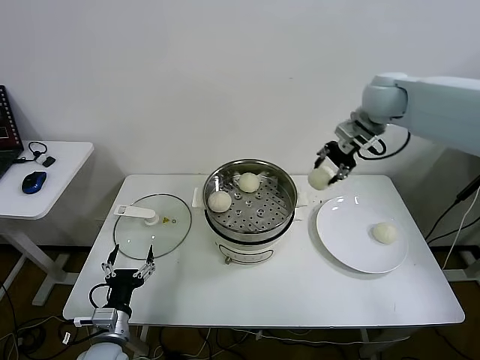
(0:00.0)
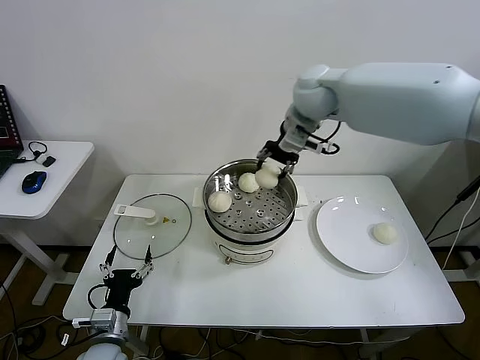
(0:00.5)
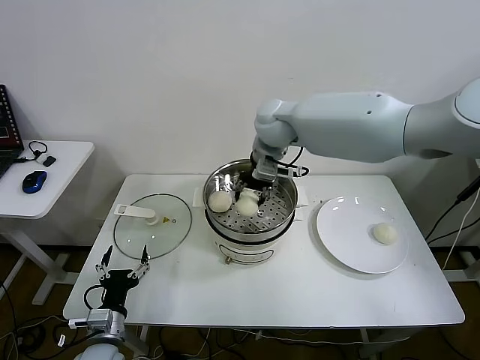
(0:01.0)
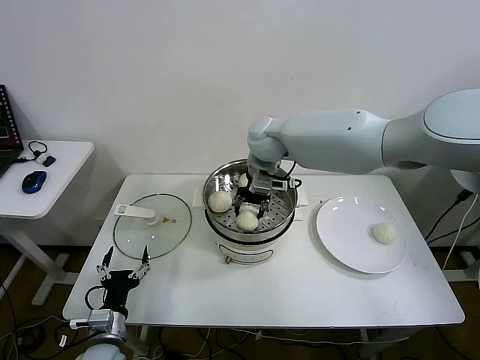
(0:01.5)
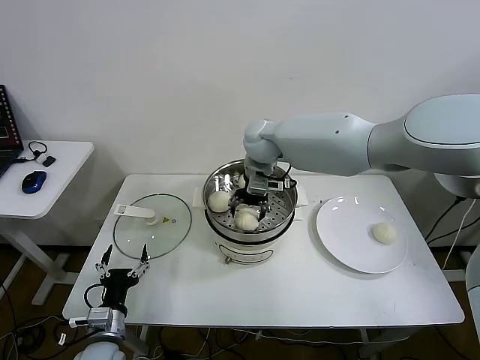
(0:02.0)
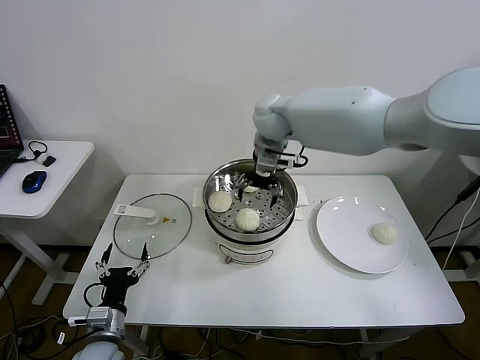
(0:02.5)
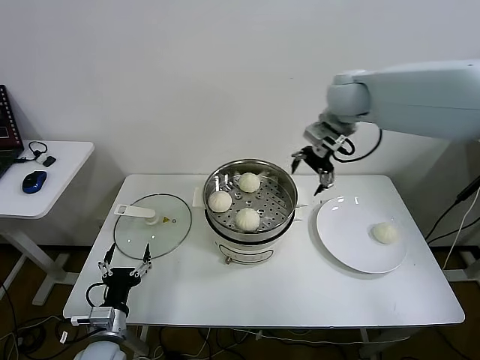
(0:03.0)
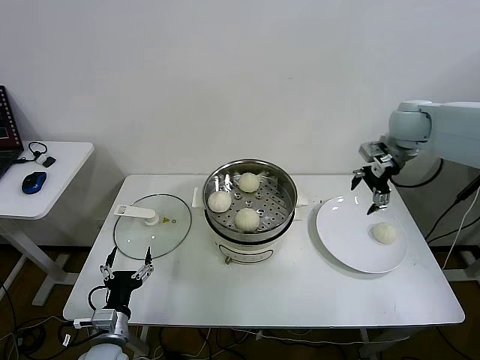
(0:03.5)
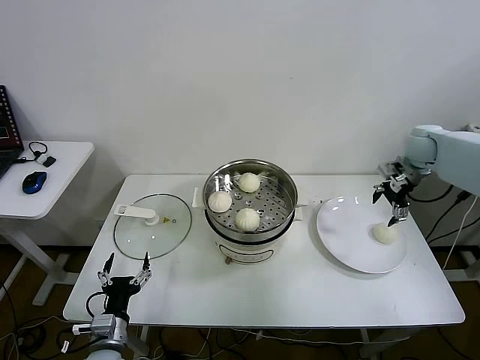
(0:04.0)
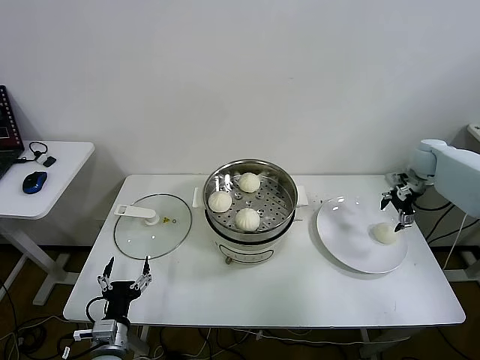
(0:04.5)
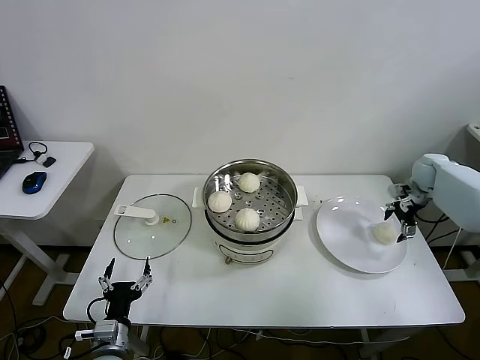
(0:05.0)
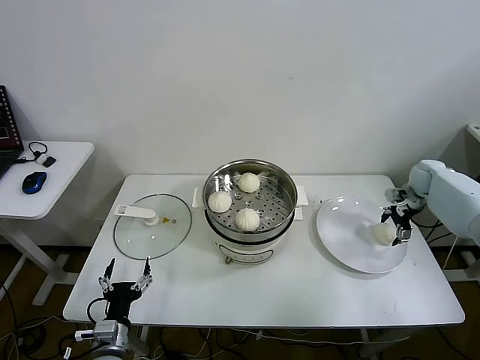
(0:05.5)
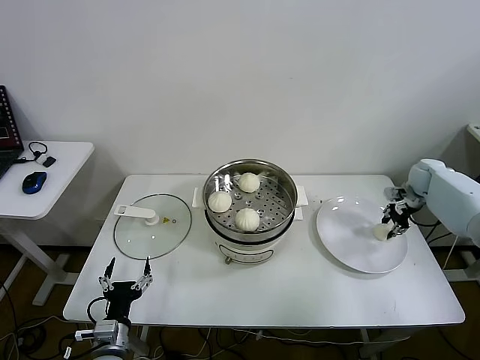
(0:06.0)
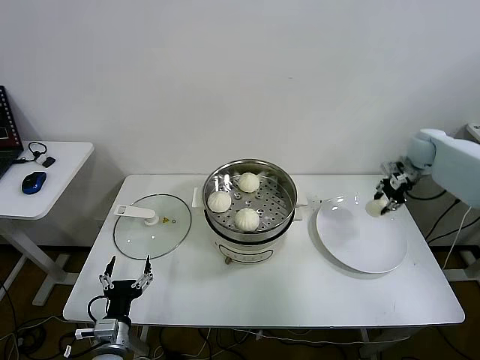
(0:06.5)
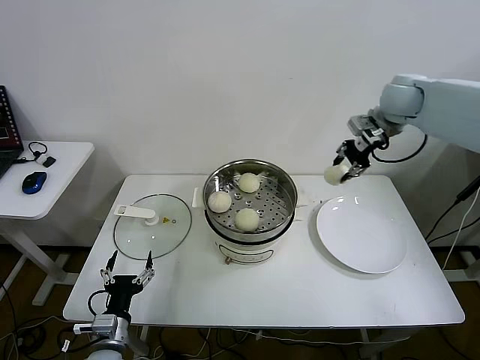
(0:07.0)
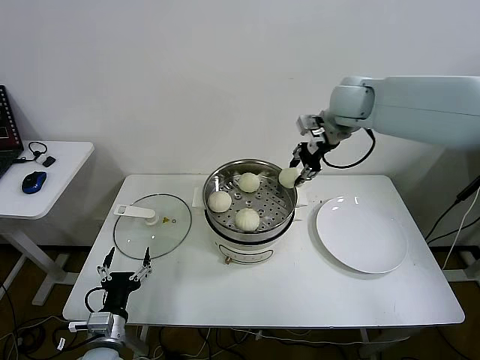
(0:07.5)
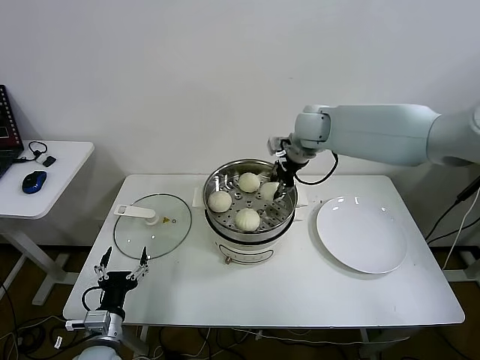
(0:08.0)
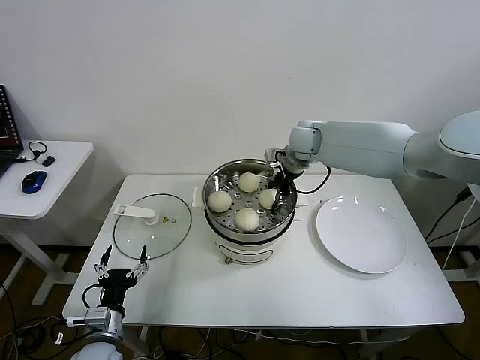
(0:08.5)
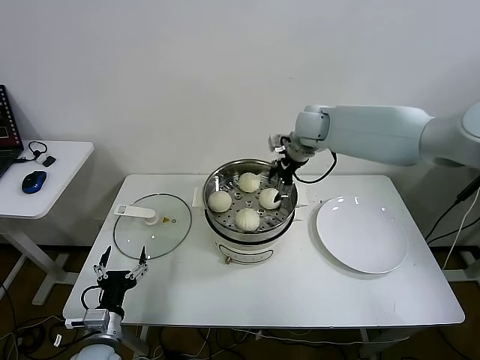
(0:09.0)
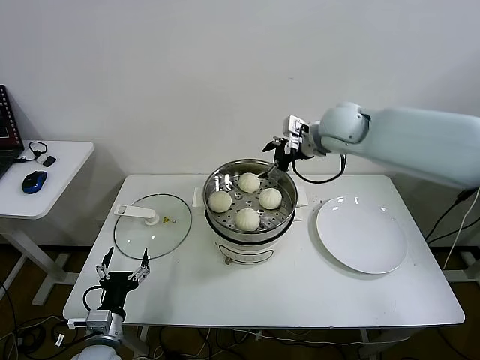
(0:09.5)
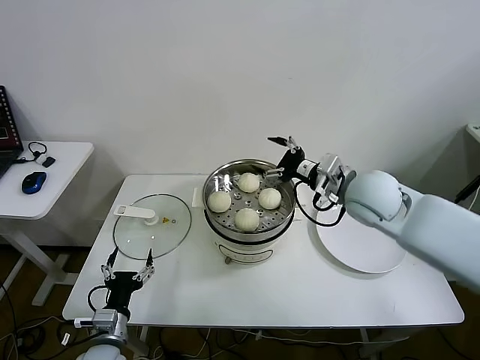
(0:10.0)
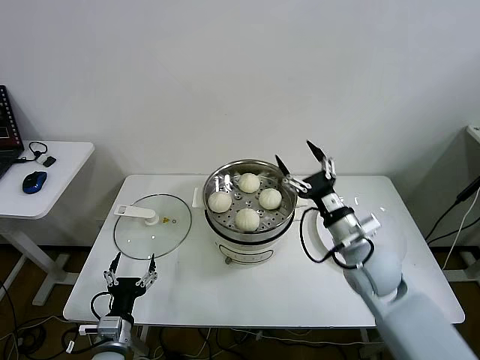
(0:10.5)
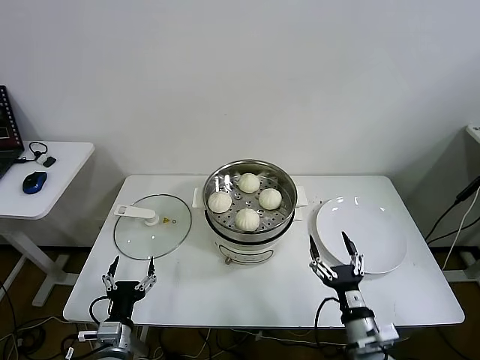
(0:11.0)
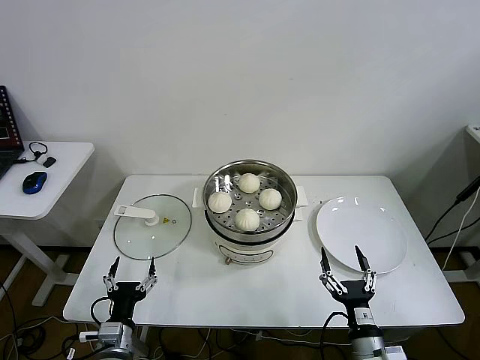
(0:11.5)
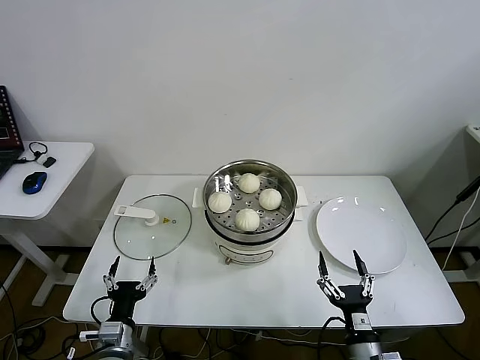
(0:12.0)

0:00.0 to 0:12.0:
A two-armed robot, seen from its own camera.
Step, 0:00.0 to 0:02.0: Place the baozi on the steamer with right gripper.
Step, 0:02.5 to 0:06.0: Grasp the baozi in the plate with right gripper.
Step, 0:06.5 to 0:09.0: Place the baozi on the steamer with right gripper.
0:00.0 to 0:02.0: The right gripper travels to the left and downward by roughly 25 cm, and opens.
0:02.0 to 0:04.0: The right gripper travels to the right by roughly 40 cm.
0:04.0 to 0:06.0: The right gripper goes roughly 15 cm downward and to the right, and closes.
0:06.0 to 0:08.0: The right gripper travels to the left and upward by some 40 cm.
0:08.0 to 0:10.0: The right gripper travels backward and to the right by some 20 cm, and opens.
0:10.0 to 0:12.0: The right gripper heads backward and downward, covering approximately 40 cm.

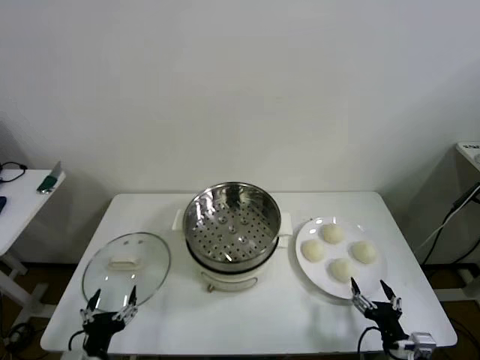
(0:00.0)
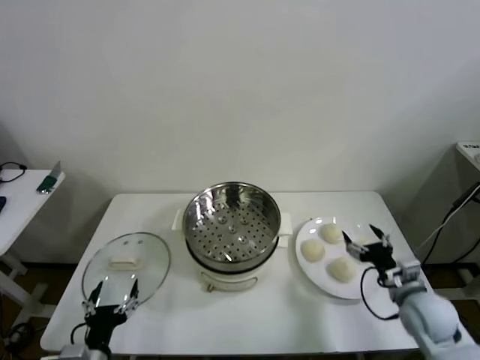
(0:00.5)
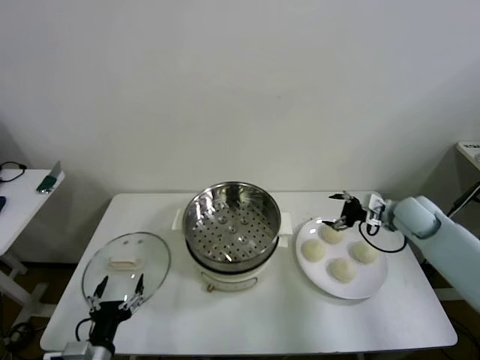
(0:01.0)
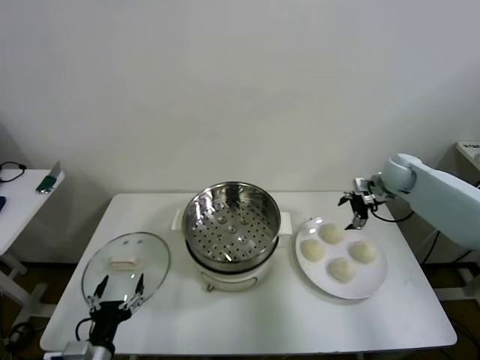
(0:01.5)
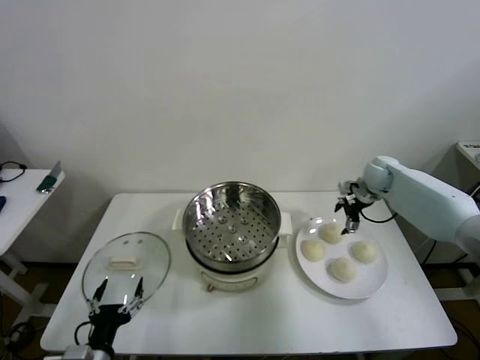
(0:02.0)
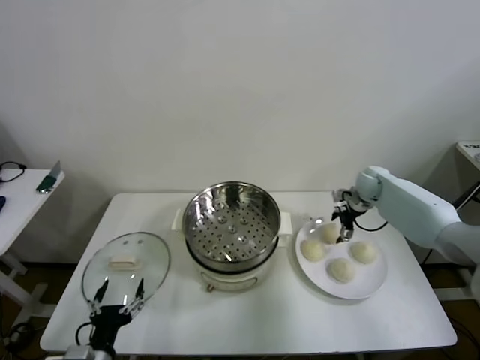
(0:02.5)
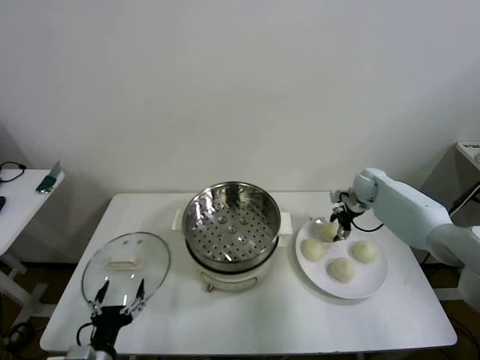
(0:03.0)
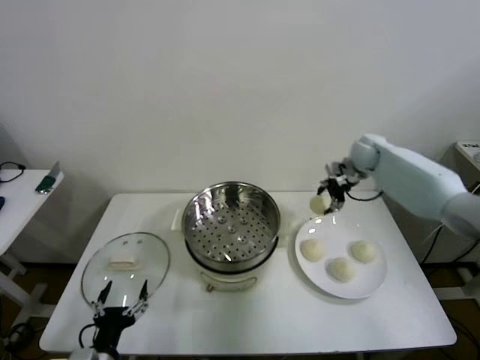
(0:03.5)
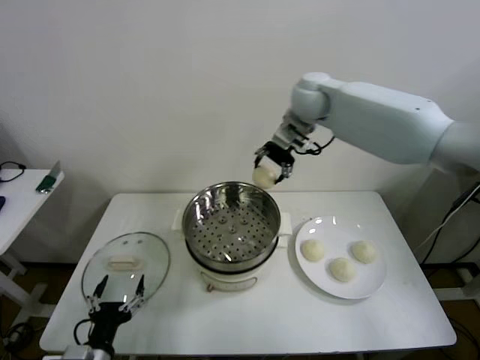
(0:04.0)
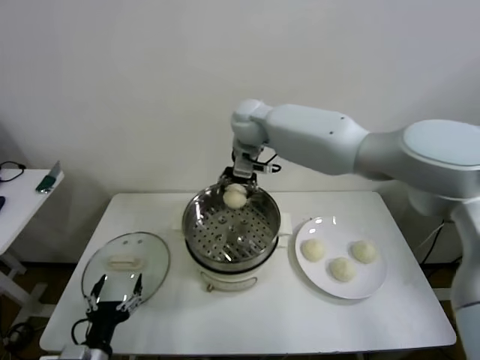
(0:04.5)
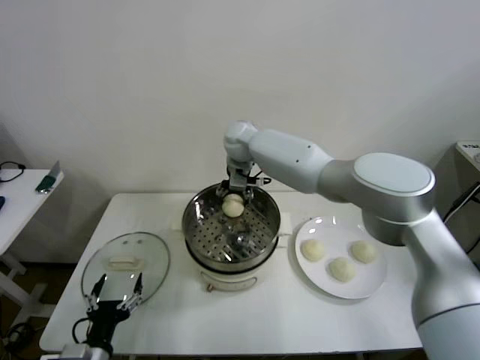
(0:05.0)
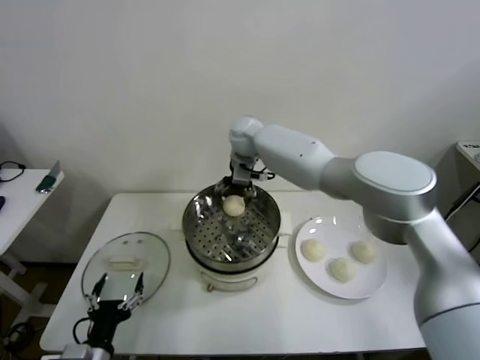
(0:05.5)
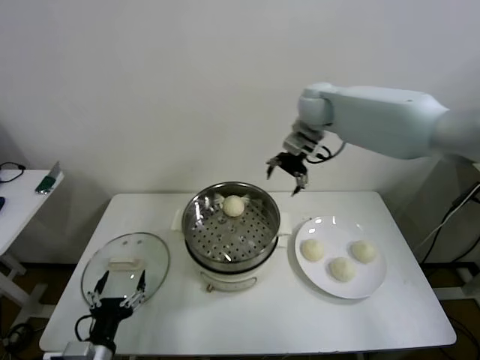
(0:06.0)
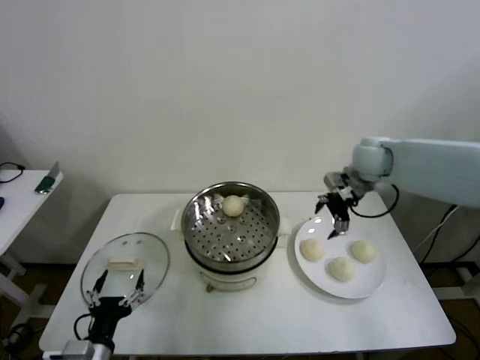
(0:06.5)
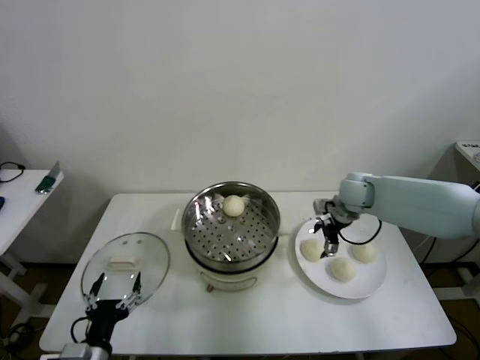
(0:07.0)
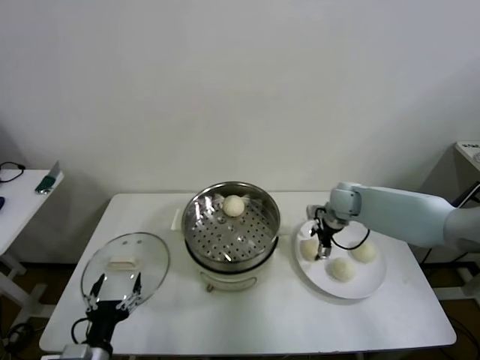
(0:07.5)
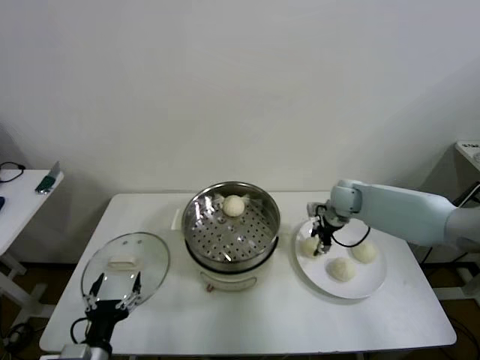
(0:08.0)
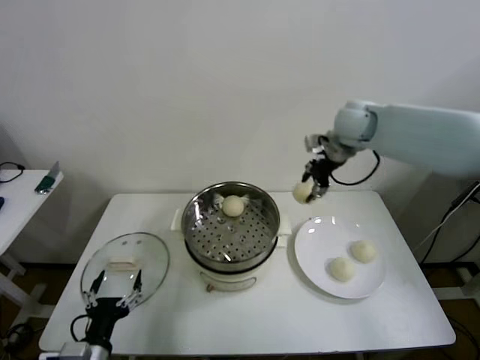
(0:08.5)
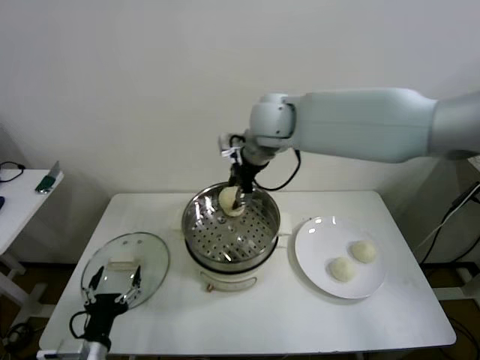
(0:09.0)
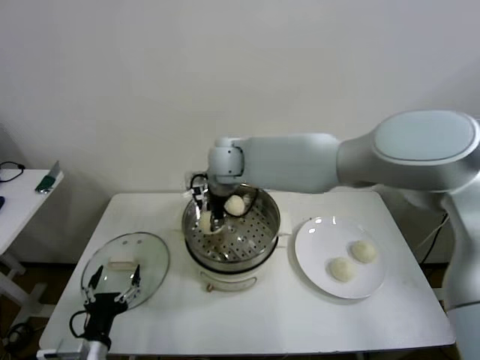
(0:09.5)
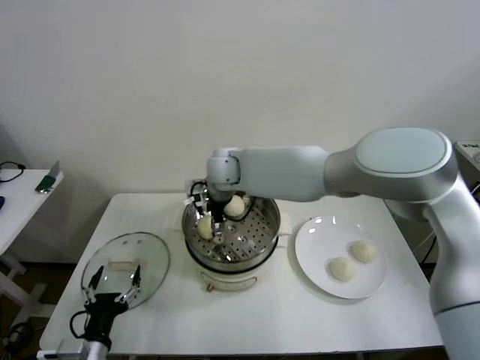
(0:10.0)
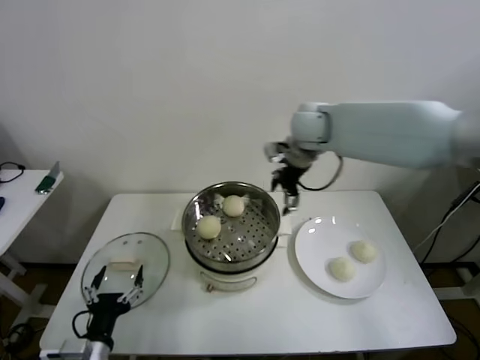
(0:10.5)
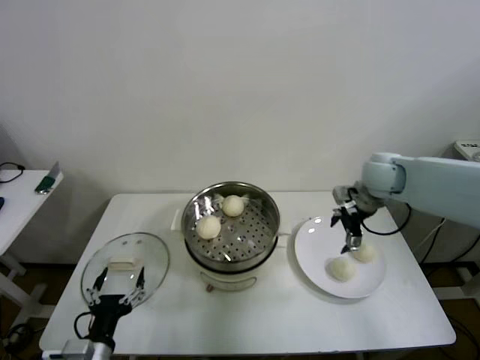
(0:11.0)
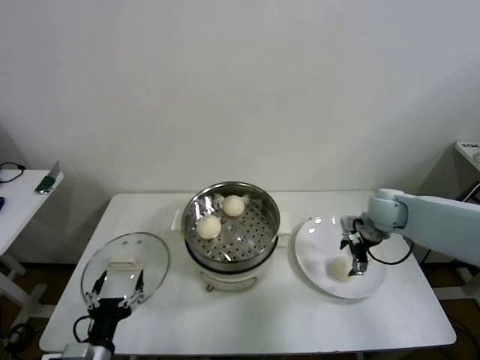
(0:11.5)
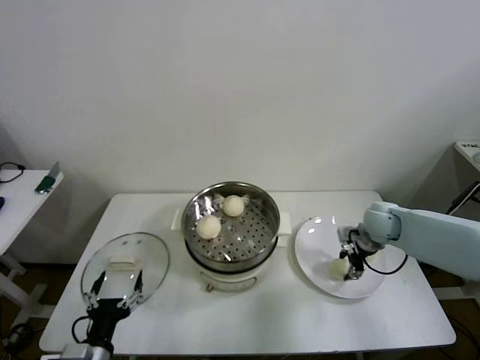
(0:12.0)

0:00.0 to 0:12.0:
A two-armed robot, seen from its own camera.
Step, 0:00.0 to 0:02.5: Grasp the baozi in the plate with right gripper.
Step, 0:03.0 to 0:05.0: Place the baozi on the steamer with right gripper.
Step, 0:05.5 to 0:07.5: Grasp the baozi in the plate with right gripper.
Step, 0:08.0 to 0:09.5: Place the baozi on the steamer with right gripper.
Step, 0:10.0 to 0:12.0: Grasp the baozi in the plate with right gripper.
0:02.0 to 0:04.0: The right gripper moves to the left and upward, roughly 35 cm, and closes its fingers.
0:04.0 to 0:06.0: The right gripper moves to the right, about 10 cm, and opens its fingers.
0:06.0 to 0:08.0: The right gripper travels downward by some 20 cm, and closes its fingers.
0:08.0 to 0:10.0: The right gripper shifts roughly 30 cm to the left, and opens.
0:10.0 to 0:12.0: The right gripper travels to the right by about 40 cm, and closes up.

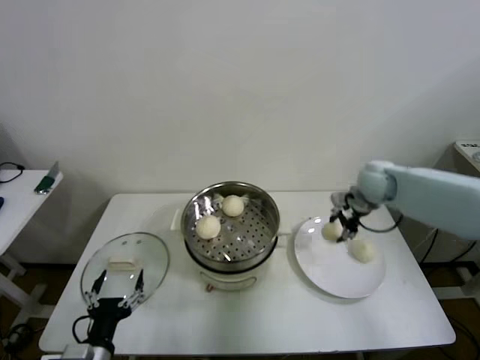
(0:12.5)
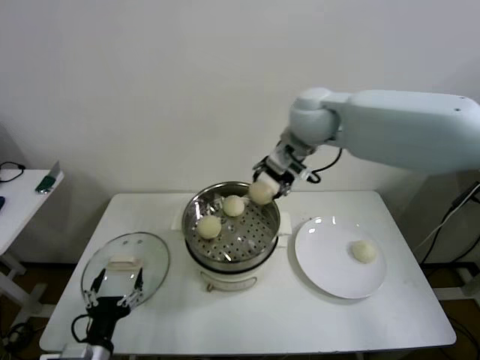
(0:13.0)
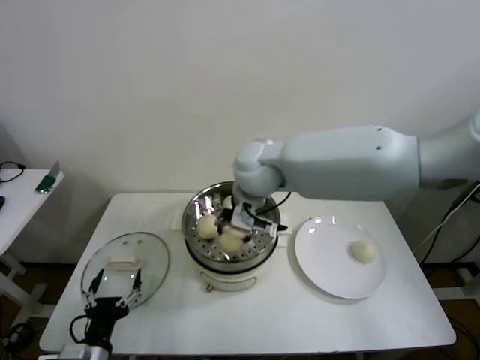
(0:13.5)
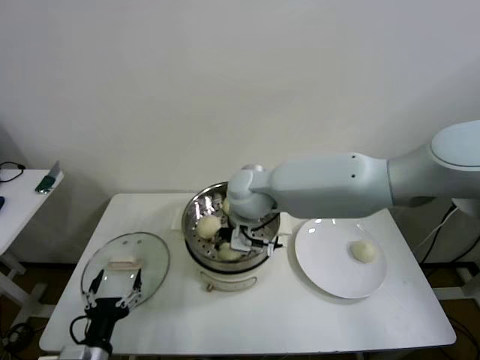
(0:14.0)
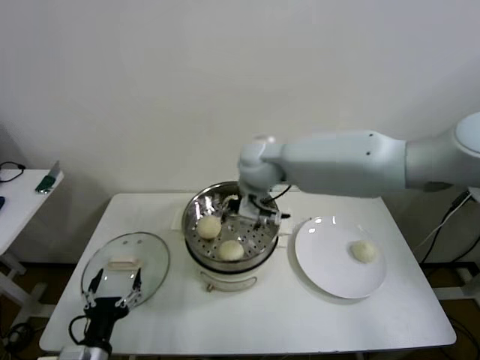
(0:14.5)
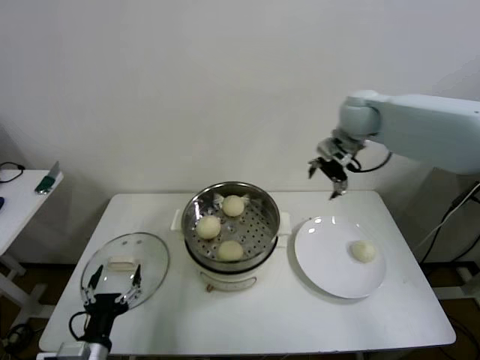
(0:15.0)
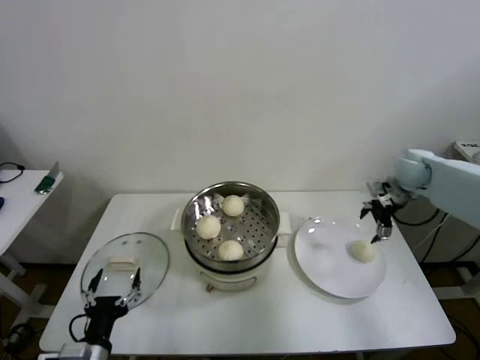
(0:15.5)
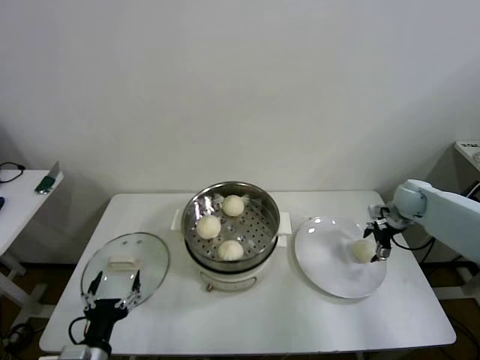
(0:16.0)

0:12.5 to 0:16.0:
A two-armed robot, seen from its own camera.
Step, 0:12.5 to 0:14.0: Place the baozi on the steamer with right gripper.
0:12.5 to 0:14.5: The right gripper travels to the left by approximately 25 cm, and opens.
0:14.5 to 0:16.0: The right gripper is displaced to the right and downward by about 40 cm.
